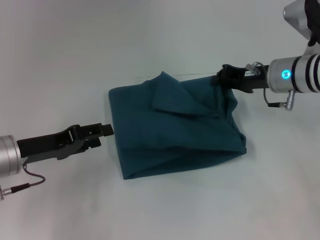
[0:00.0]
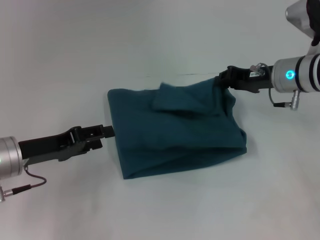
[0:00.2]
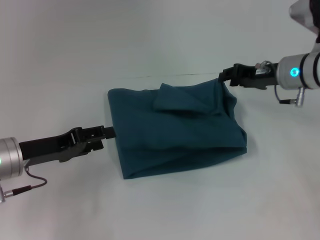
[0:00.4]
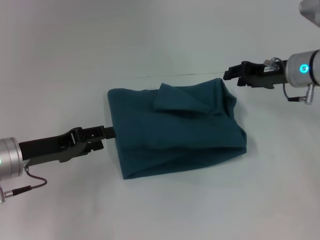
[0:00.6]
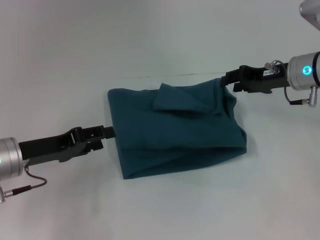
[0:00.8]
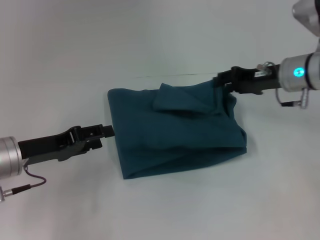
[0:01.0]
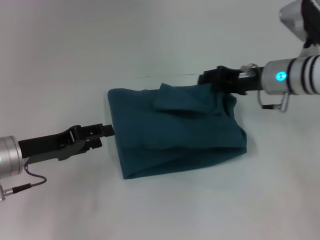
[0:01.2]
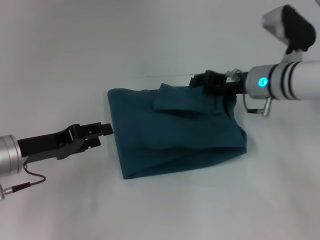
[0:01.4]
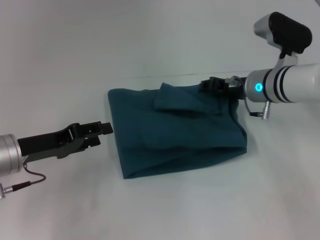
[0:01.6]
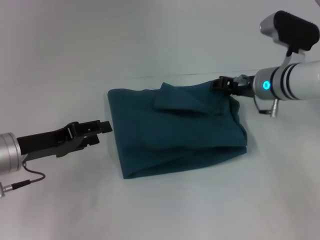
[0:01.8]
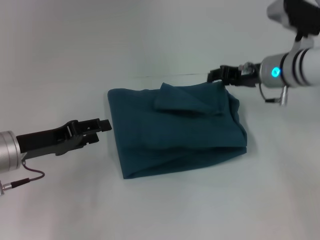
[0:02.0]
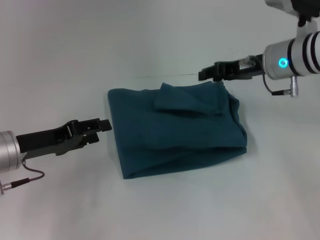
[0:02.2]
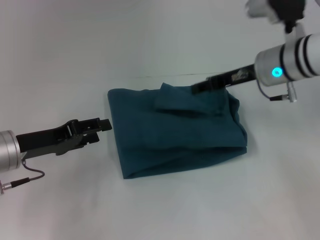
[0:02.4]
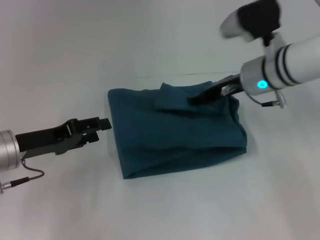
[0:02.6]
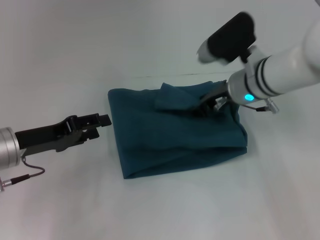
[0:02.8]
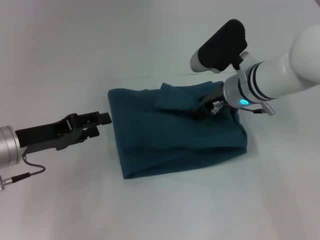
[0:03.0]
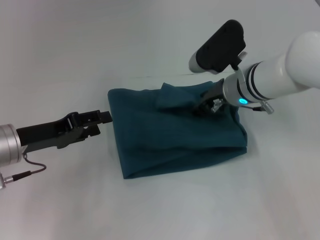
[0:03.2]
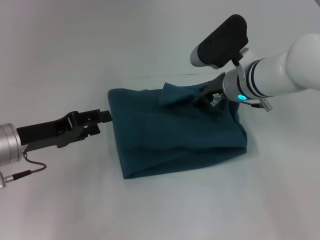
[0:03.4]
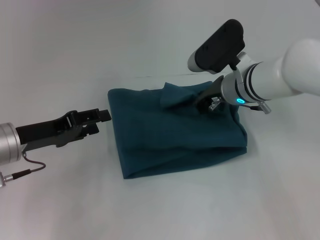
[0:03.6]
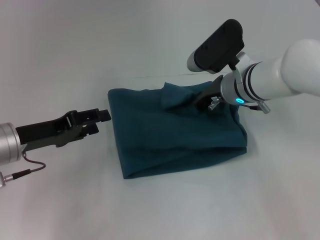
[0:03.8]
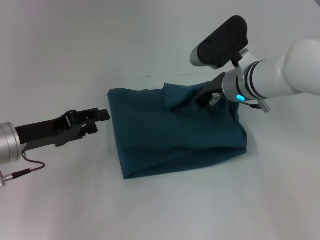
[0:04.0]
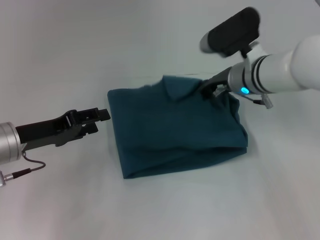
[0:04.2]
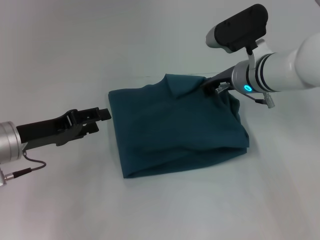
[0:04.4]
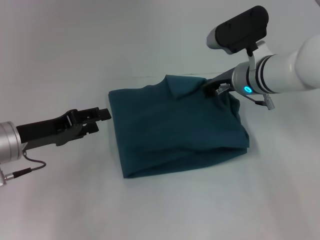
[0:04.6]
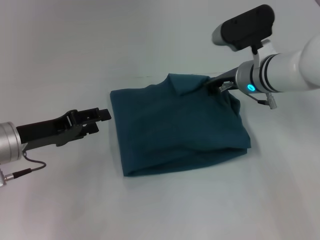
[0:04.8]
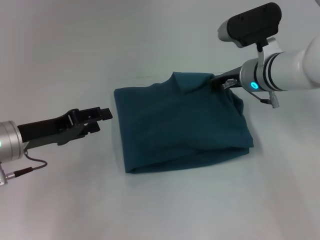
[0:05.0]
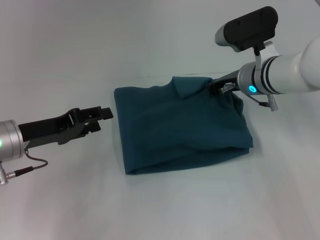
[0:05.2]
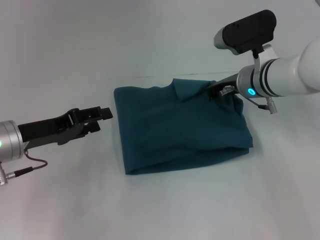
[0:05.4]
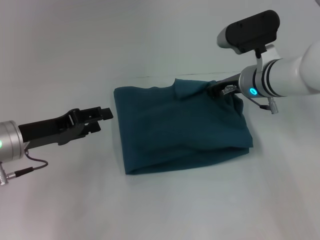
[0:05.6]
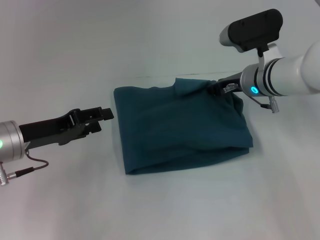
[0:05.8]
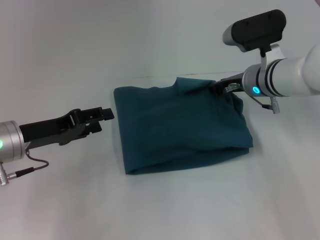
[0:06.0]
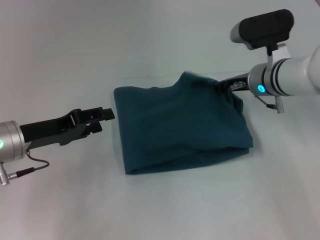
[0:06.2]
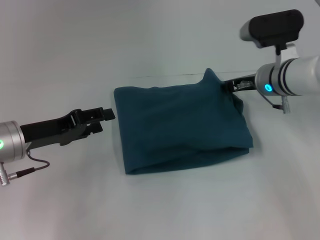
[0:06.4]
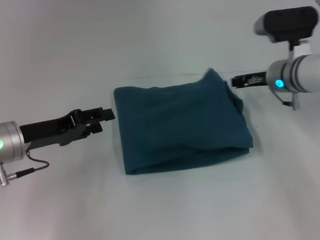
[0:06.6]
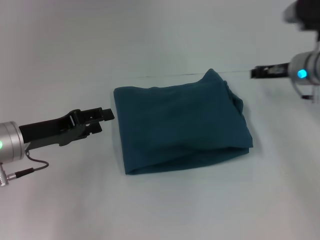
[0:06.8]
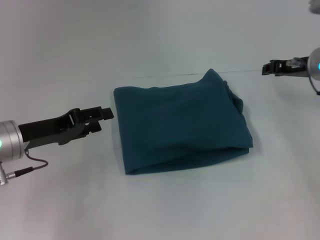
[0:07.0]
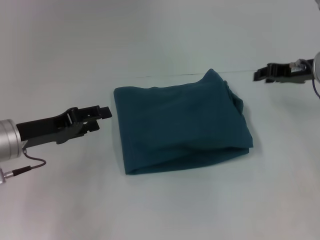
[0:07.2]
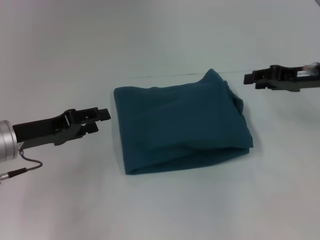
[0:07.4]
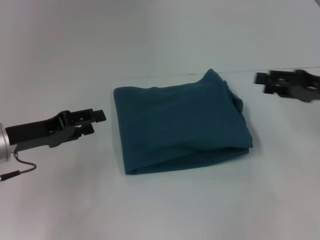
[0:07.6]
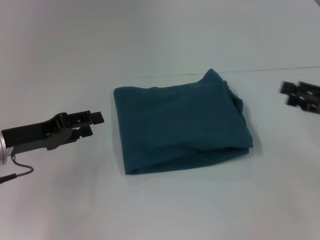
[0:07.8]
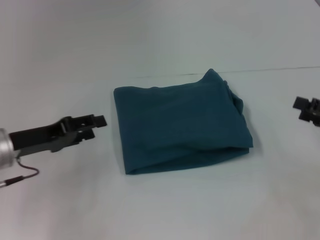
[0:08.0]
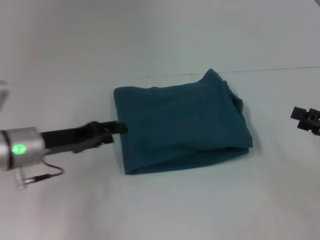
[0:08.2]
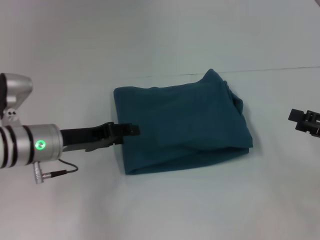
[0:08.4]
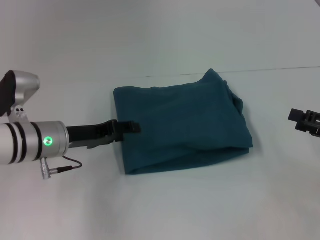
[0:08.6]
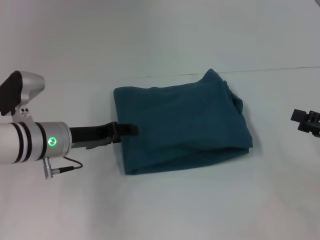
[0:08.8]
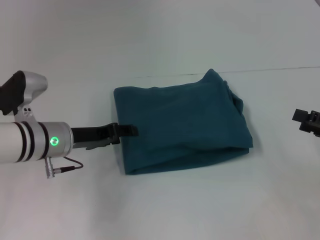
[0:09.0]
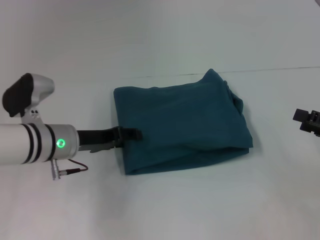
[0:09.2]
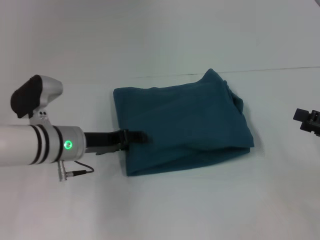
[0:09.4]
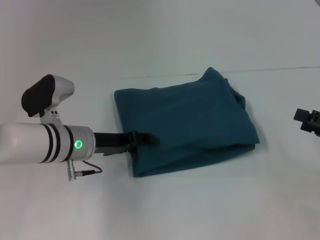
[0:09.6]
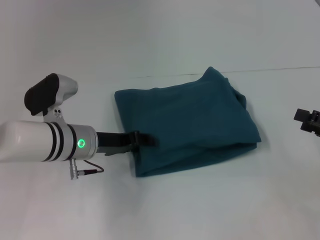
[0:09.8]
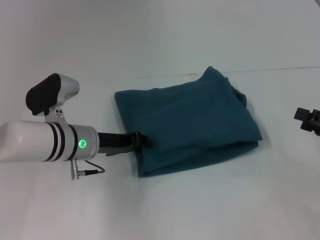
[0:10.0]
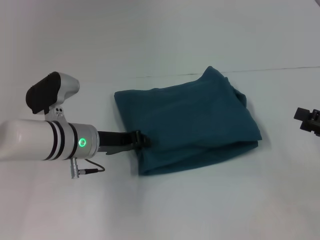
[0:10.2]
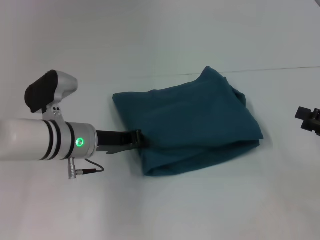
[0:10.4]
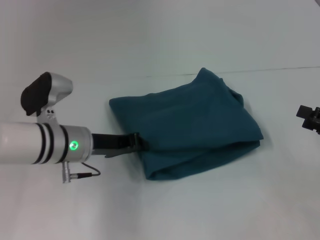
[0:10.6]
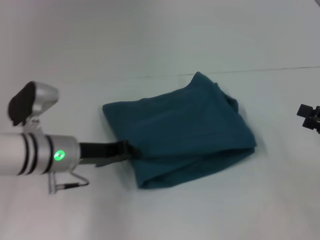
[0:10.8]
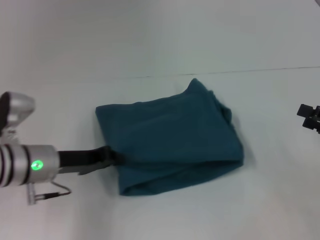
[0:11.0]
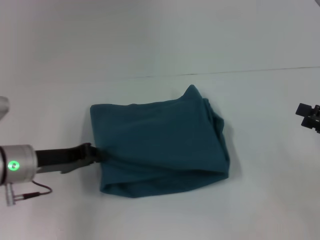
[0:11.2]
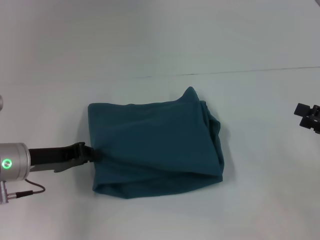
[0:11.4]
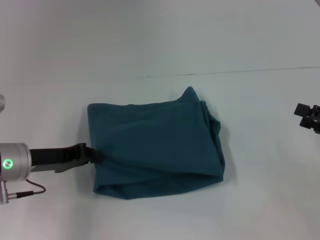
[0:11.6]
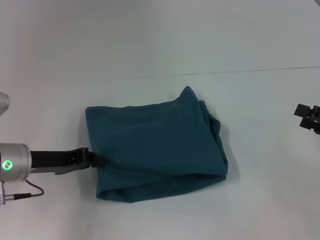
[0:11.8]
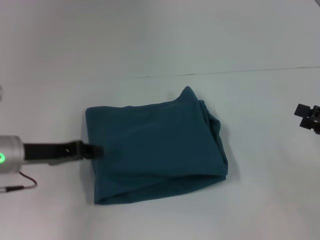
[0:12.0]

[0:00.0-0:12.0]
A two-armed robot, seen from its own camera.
0:00.0 to 0:01.6: The right gripper opens up.
0:01.6 to 0:03.0: The right gripper ends up roughly 5 cm from where it was.
0:03.0 to 0:04.4: The right gripper closes its fingers.
0:04.4 to 0:06.0: The right gripper opens.
0:06.0 to 0:07.6: The right gripper travels to the right and backward by some 20 cm.
0:07.6 to 0:09.0: The left gripper shifts some 5 cm to the right; the right gripper shifts about 10 cm backward, and opens its fingers.
0:09.0 to 0:10.4: The left gripper closes up.
0:10.4 to 0:12.0: The left gripper is displaced to the left by about 10 cm.

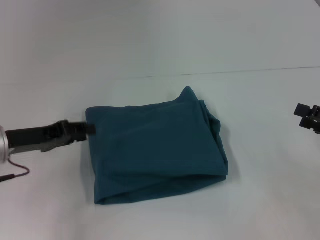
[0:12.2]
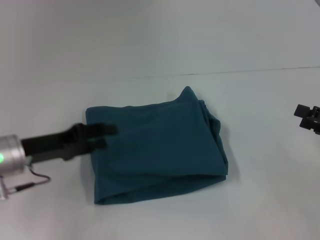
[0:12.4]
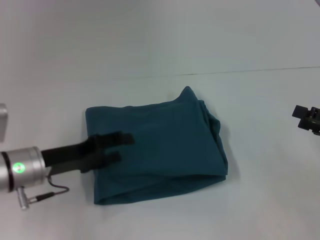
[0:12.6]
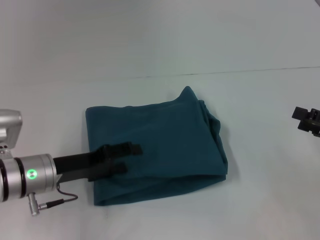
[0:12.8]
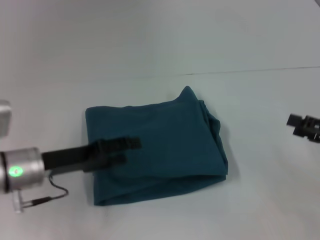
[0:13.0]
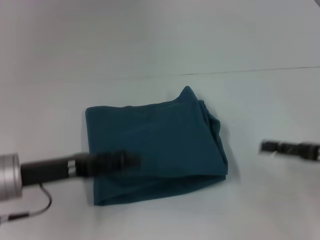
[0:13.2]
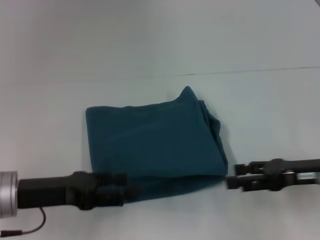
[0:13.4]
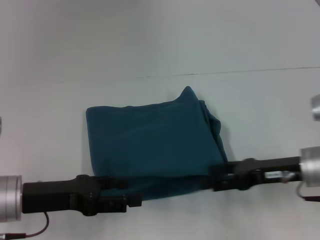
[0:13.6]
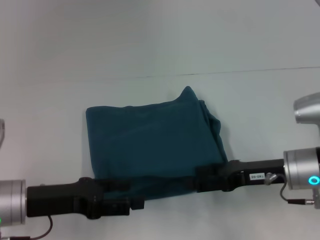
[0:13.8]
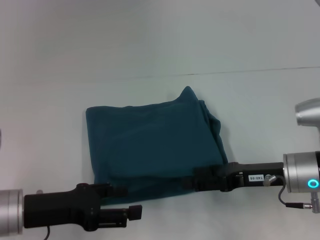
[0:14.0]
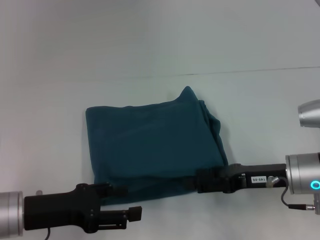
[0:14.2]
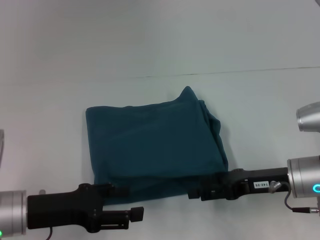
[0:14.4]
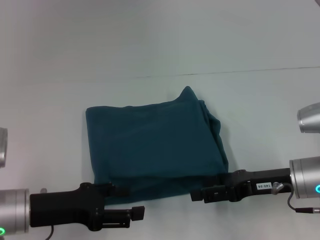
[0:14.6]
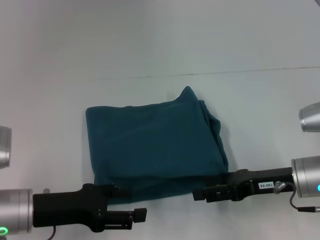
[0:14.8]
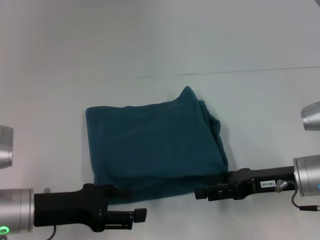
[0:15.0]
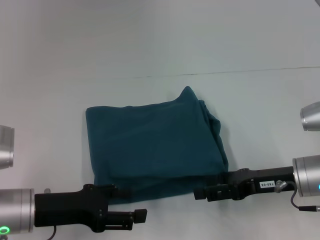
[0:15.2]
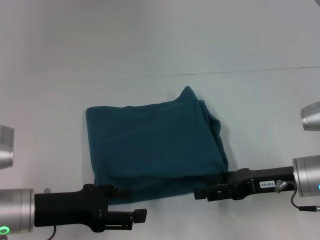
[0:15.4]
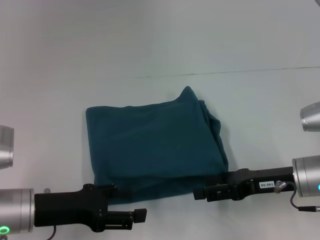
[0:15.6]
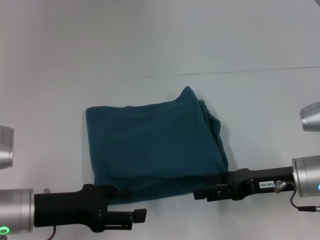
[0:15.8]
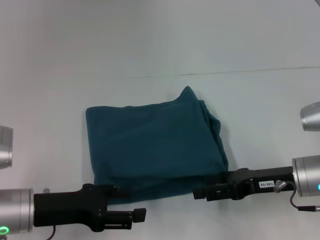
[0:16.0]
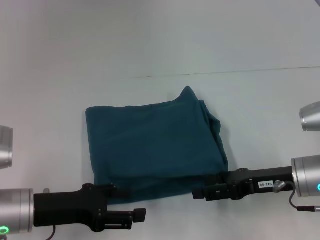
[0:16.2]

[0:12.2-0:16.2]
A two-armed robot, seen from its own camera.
0:12.2 to 0:13.6: The right gripper is displaced to the left by some 15 cm, while the left gripper goes some 5 cm backward, and opens up.
0:13.6 to 0:14.8: The grippers move only a little.
0:14.8 to 0:16.2: The two grippers keep their place.

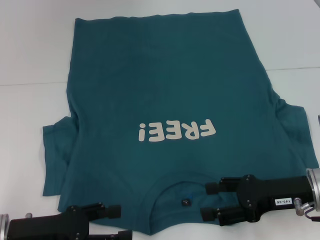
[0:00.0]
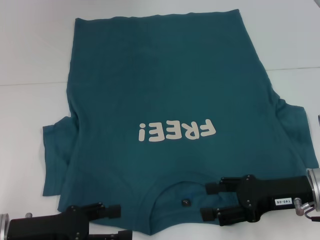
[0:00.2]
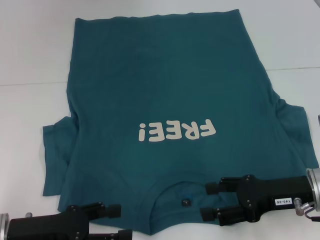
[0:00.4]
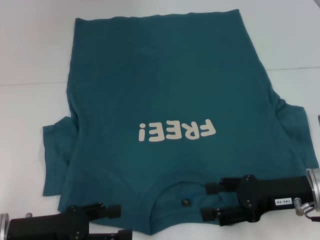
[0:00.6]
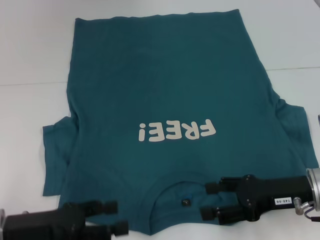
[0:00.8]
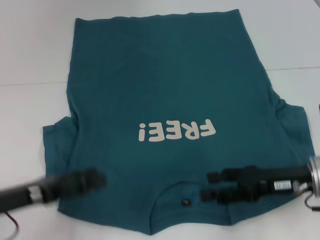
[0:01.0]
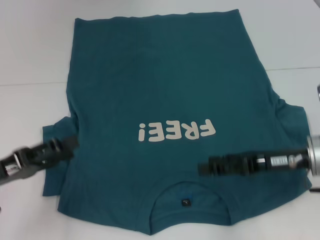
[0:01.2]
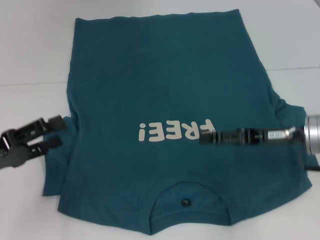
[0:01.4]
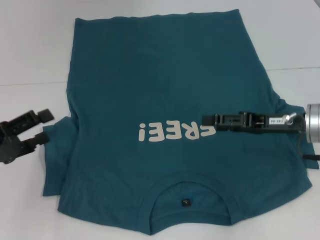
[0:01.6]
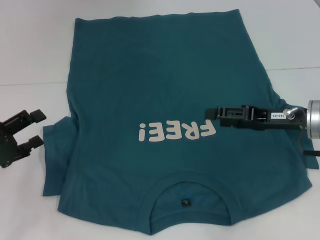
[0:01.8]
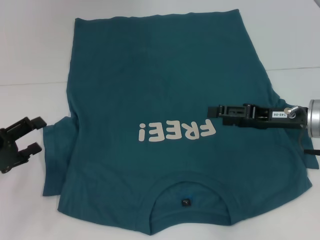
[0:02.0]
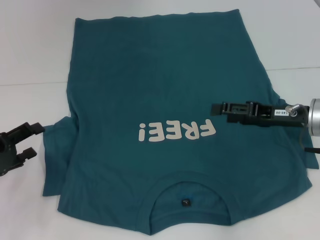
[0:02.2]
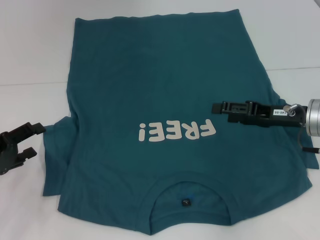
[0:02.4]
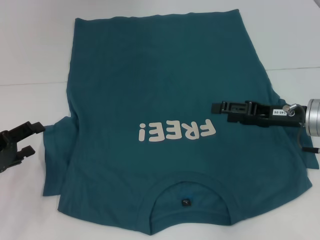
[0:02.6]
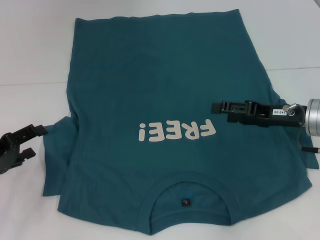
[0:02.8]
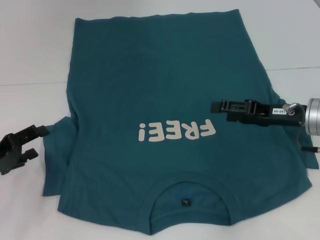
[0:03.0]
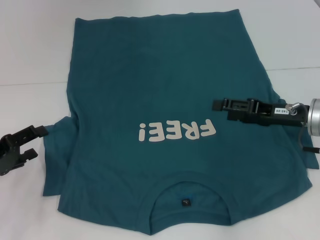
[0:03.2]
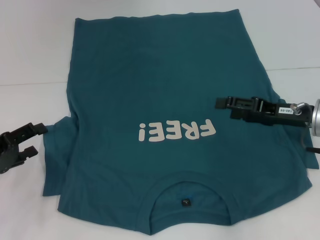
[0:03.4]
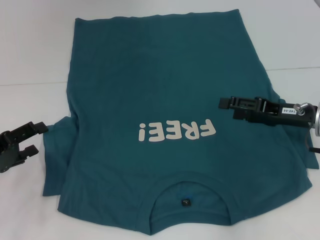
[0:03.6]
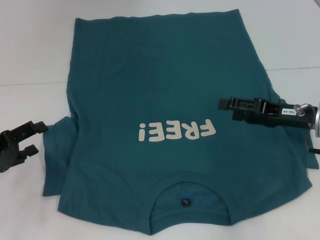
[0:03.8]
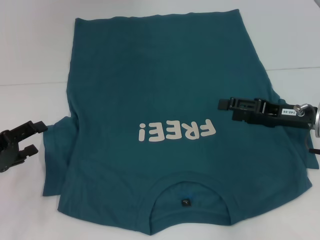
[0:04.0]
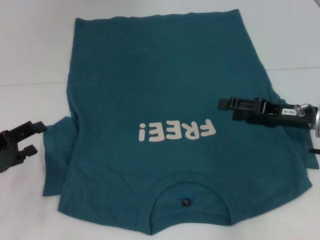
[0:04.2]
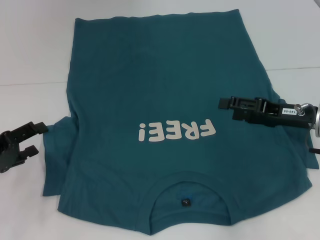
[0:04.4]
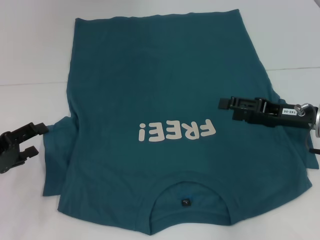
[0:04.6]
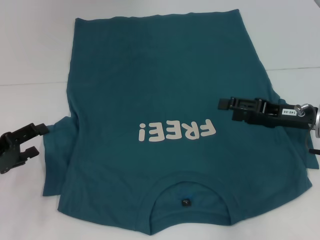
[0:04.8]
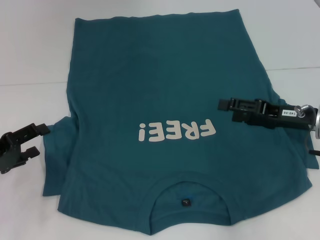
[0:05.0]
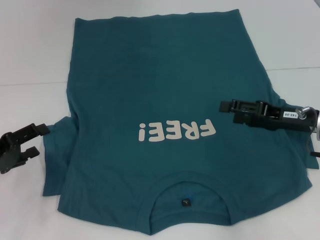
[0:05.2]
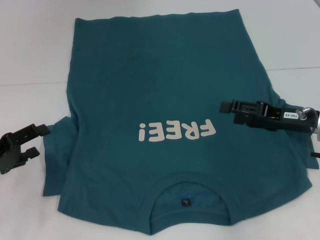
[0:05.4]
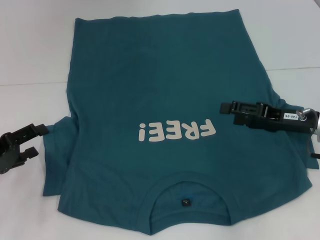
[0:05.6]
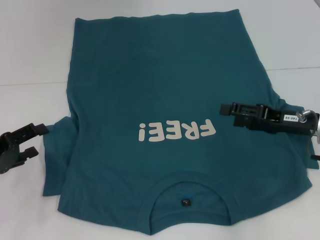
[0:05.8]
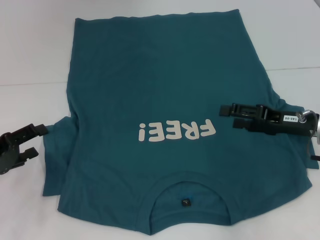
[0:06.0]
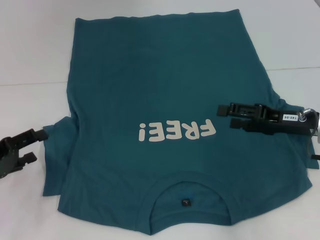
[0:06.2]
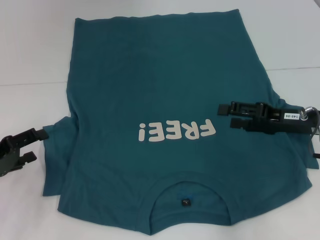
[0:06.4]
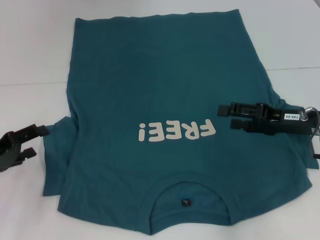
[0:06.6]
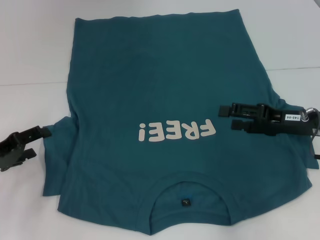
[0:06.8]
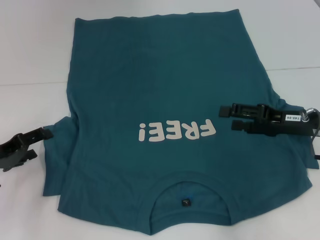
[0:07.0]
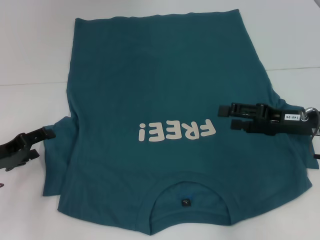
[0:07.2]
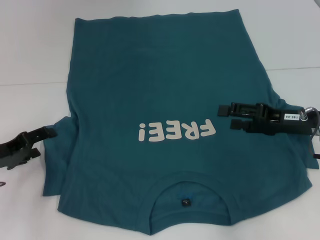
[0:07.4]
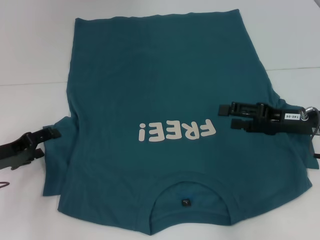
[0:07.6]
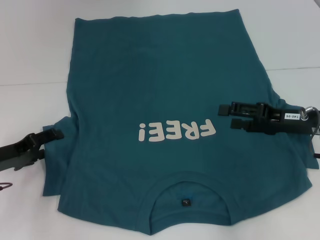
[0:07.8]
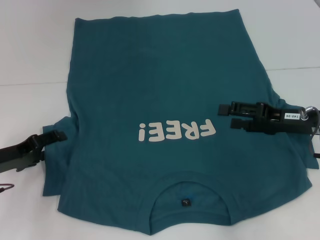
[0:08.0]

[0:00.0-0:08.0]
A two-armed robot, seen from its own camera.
0:00.0 to 0:01.6: The right gripper is displaced forward by about 5 cm. Meanwhile the left gripper is displaced to the left by roughly 5 cm.
0:01.6 to 0:03.2: The grippers make only small movements.
0:03.2 to 0:04.8: Both grippers stay about where they are.
0:04.8 to 0:06.4: The two grippers keep their place.
0:06.4 to 0:08.0: The grippers stay close to where they were, moving slightly.
